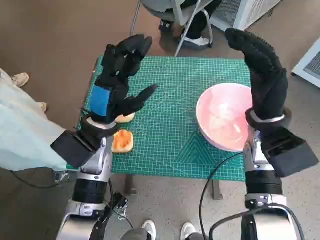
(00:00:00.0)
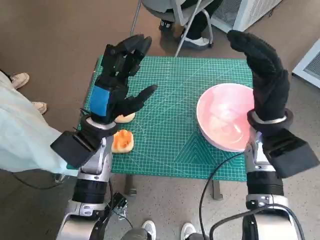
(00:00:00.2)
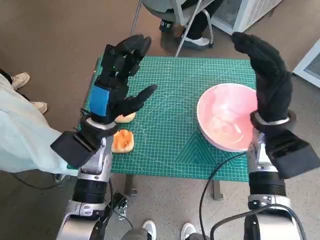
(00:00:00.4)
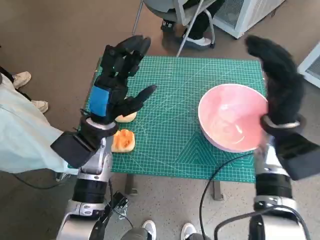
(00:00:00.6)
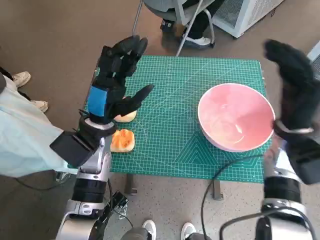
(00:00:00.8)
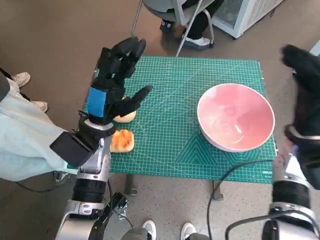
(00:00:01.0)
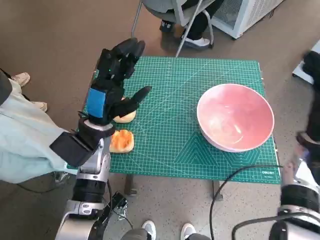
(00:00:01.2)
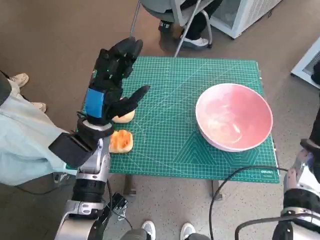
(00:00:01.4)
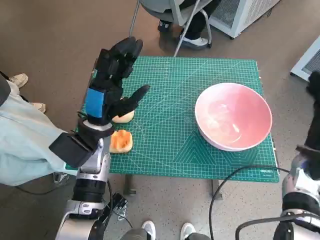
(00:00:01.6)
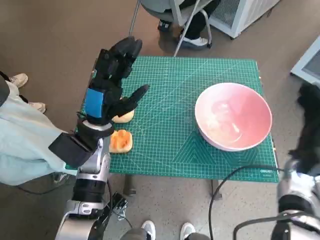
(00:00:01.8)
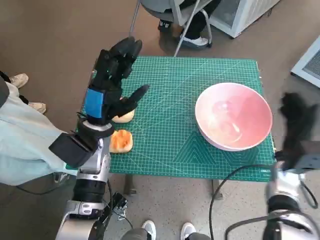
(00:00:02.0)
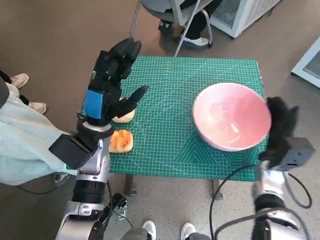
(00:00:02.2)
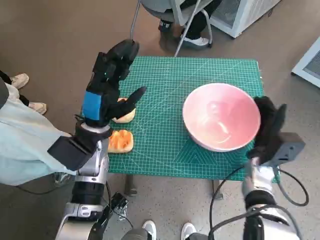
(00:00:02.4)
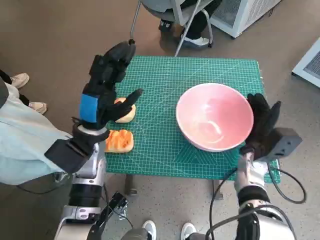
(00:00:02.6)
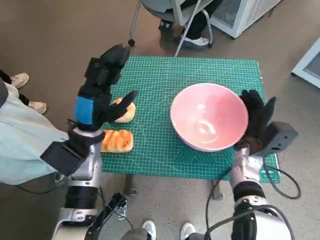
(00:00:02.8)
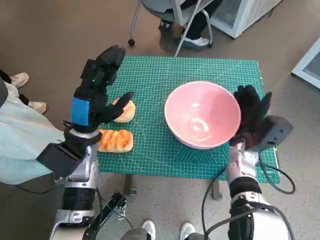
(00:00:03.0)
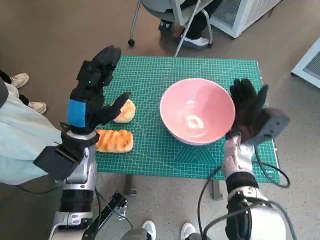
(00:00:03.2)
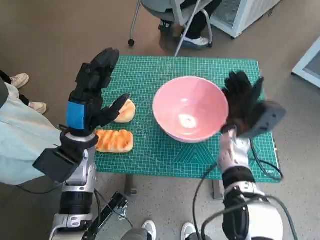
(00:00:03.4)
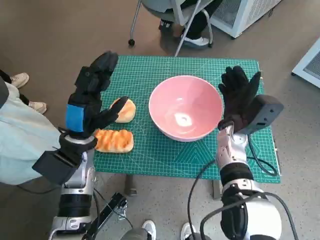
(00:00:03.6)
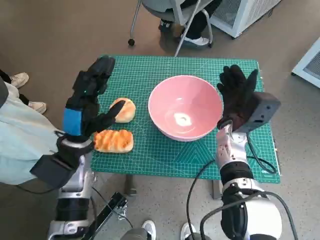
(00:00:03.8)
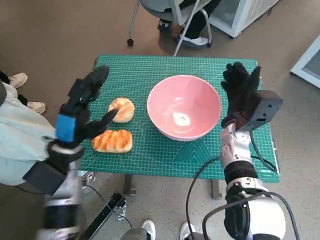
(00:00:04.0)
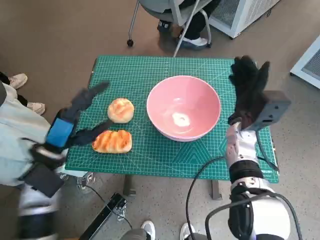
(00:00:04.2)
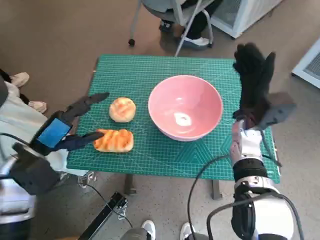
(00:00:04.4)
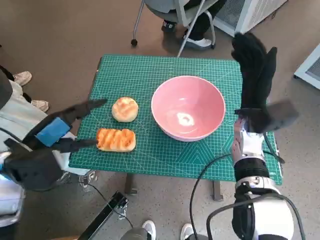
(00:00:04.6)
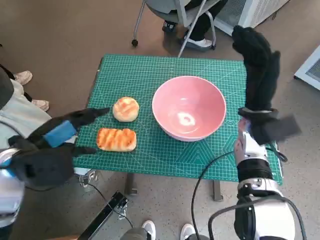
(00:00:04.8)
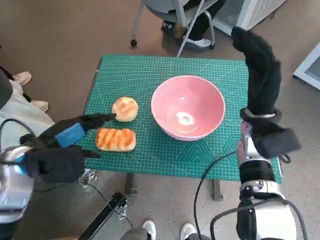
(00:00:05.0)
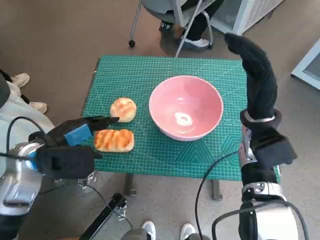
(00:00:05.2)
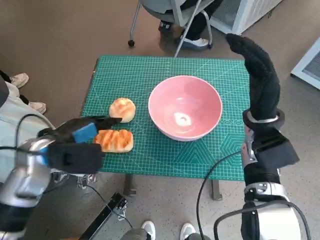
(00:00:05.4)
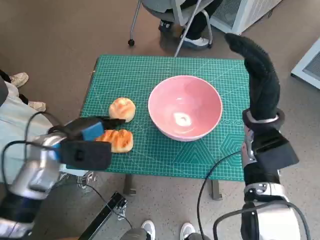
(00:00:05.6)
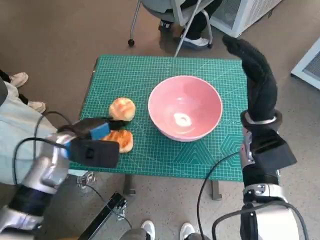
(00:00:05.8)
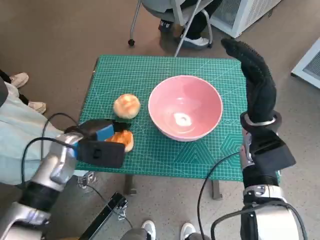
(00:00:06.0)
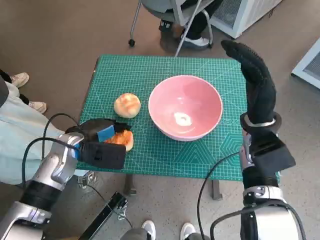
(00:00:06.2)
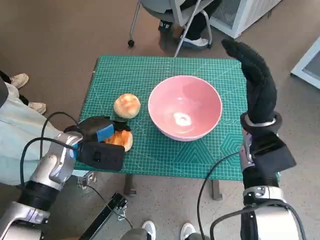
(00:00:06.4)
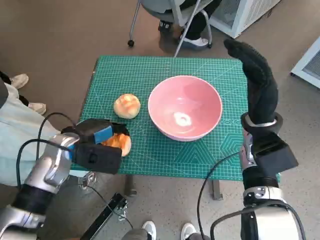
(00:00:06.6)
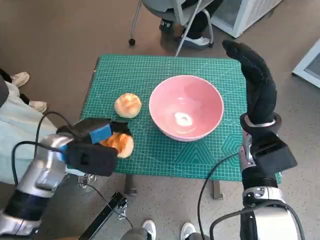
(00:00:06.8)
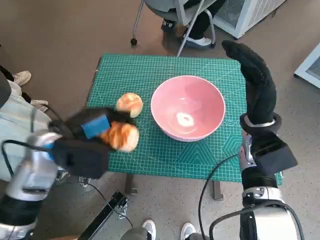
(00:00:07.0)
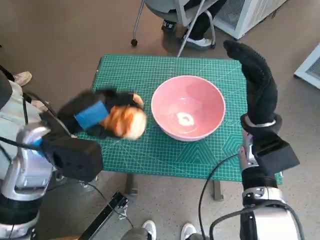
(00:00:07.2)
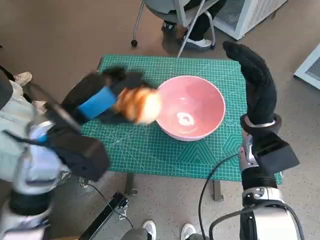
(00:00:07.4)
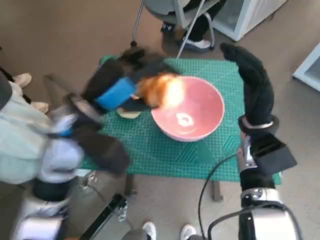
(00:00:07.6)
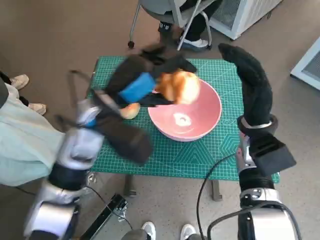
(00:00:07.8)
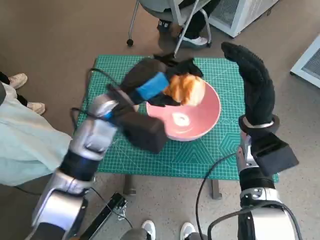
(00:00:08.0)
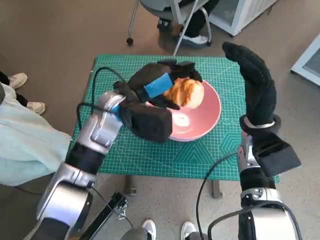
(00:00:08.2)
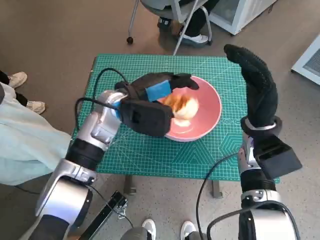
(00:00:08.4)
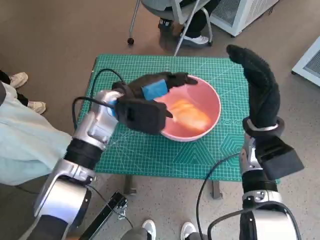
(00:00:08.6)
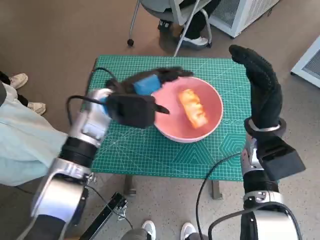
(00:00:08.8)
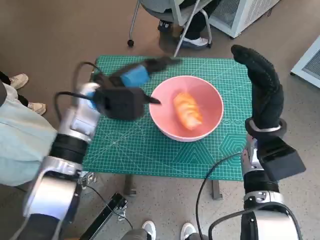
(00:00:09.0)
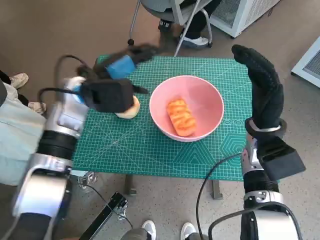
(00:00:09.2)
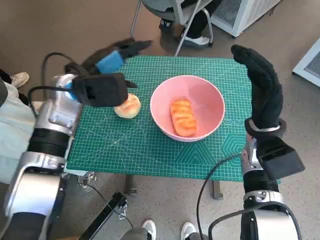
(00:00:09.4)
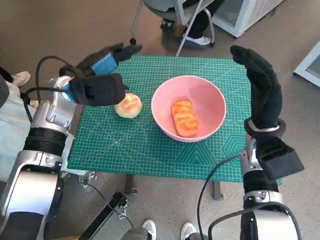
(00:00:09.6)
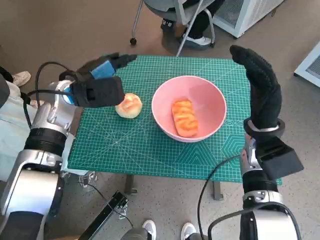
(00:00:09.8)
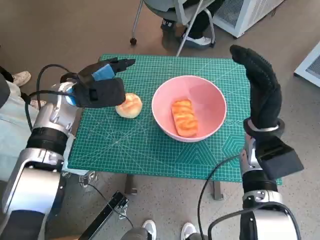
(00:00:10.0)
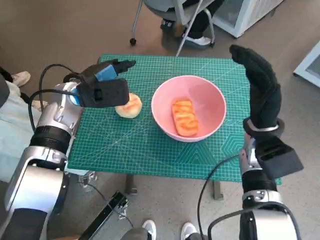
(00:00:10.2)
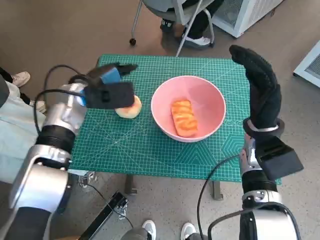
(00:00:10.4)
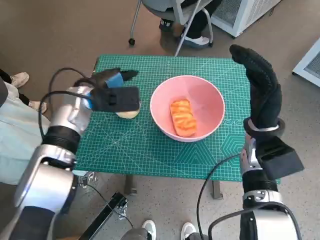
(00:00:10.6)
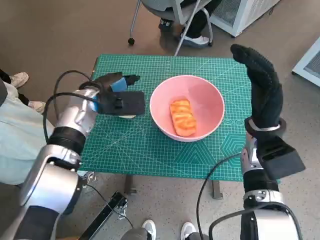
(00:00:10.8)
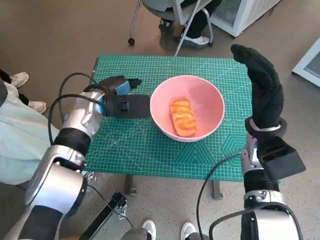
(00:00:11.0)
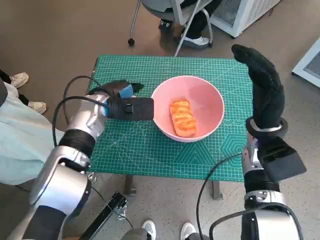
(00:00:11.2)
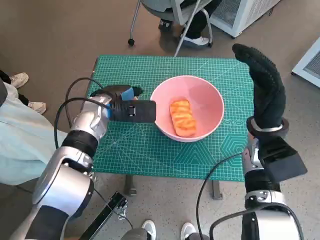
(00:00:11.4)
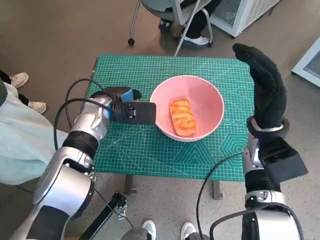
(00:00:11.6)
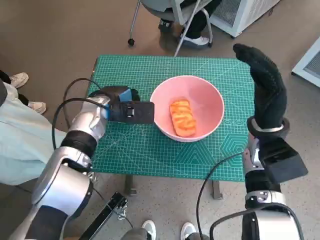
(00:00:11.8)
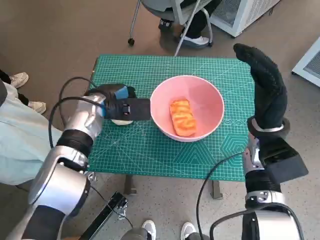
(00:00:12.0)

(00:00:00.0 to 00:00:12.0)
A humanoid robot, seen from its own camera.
Task of the whole recording: Push the bowl to the center of the table and put the bread into the bowl.
Step, 00:00:00.0 - 00:00:04.0: Move the pink bowl to the center of table with right hand.
Step, 00:00:04.2 - 00:00:06.2: Grasp the long bread with left hand.
Step, 00:00:06.4 - 00:00:08.6: Place the long bread in pink bowl with left hand.
Step, 00:00:08.8 - 00:00:11.8: Grasp the round bread with left hand.
00:00:01.6 - 00:00:03.0: The right hand shifts roughly 10 cm to the left.
00:00:03.0 - 00:00:04.4: The left hand moves to the left and backward, some 10 cm, while the right hand travels upward by approximately 5 cm.
00:00:04.4 - 00:00:06.0: The left hand travels forward by about 5 cm.
00:00:06.0 - 00:00:07.6: The left hand moves upward and to the right, about 15 cm.
00:00:07.6 - 00:00:09.0: The left hand goes some 10 cm forward.
00:00:09.0 - 00:00:10.4: The left hand moves approximately 5 cm.

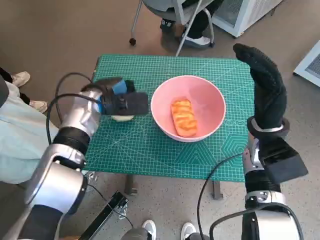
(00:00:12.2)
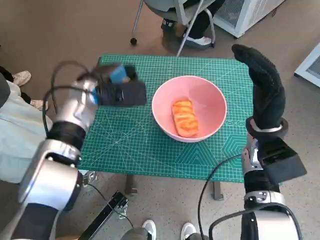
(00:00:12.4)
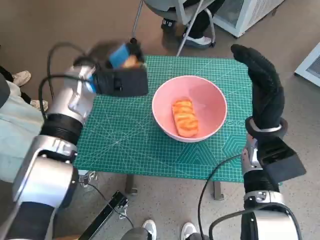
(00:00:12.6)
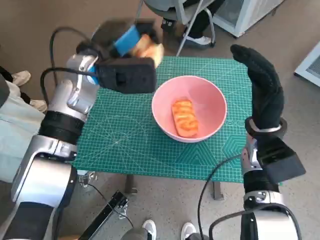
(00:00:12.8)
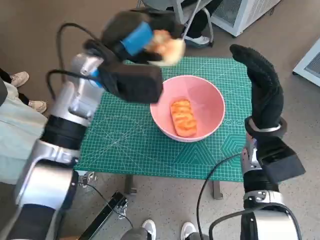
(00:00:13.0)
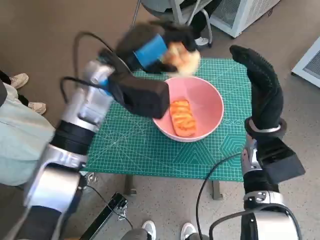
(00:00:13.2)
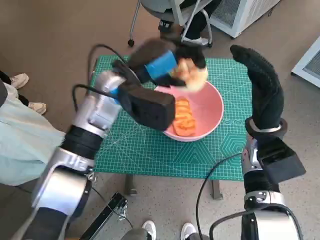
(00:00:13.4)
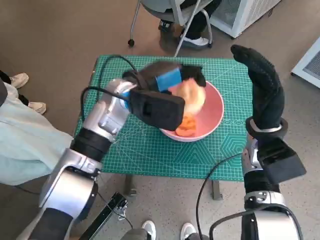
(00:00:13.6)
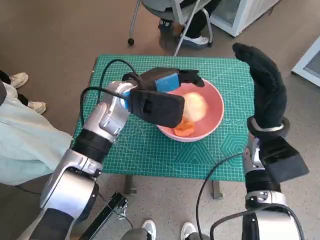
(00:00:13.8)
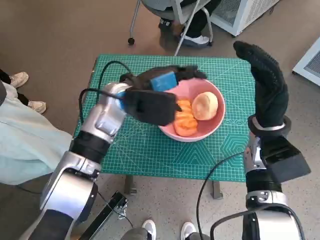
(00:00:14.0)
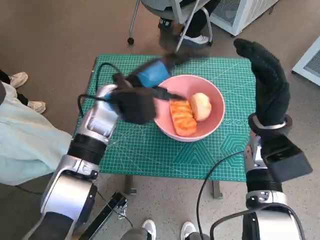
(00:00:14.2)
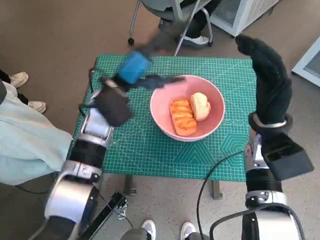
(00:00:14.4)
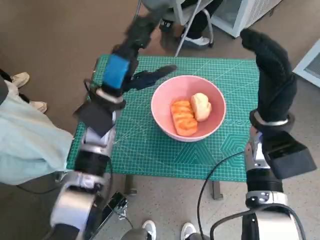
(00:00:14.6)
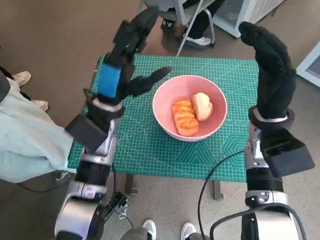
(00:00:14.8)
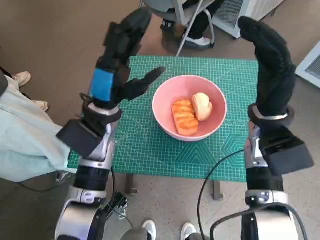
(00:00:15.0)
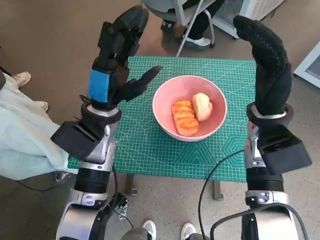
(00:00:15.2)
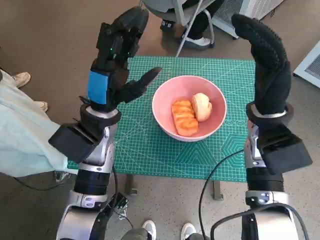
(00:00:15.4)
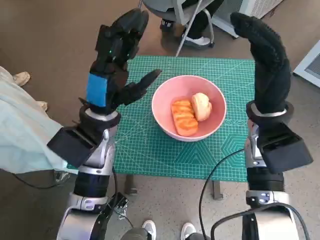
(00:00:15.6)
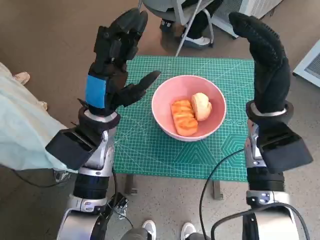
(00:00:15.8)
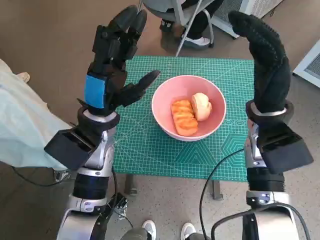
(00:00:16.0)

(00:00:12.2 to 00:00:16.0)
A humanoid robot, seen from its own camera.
Task of the whole recording: Push the bowl to the center of the table and put the bread into the bowl.
Step, 00:00:12.2 - 00:00:13.6: Place the round bread in pink bowl with left hand.
00:00:12.2 - 00:00:13.4: The left hand heads upward and to the right, covering approximately 10 cm.
00:00:13.4 - 00:00:14.8: The left hand moves downward, roughly 5 cm.
